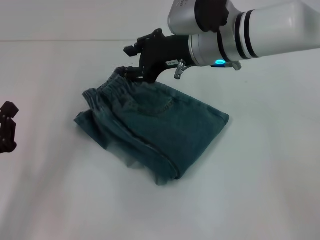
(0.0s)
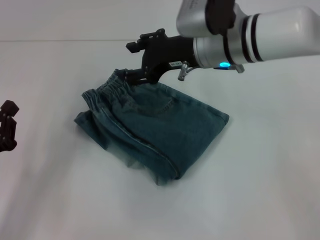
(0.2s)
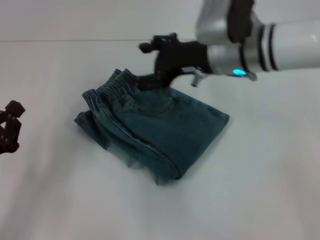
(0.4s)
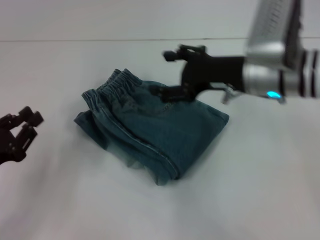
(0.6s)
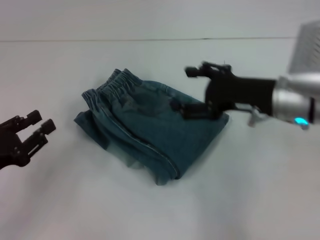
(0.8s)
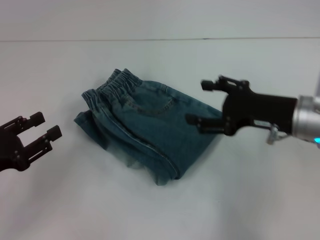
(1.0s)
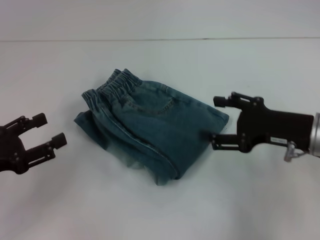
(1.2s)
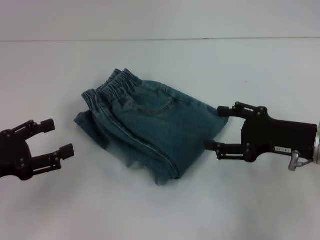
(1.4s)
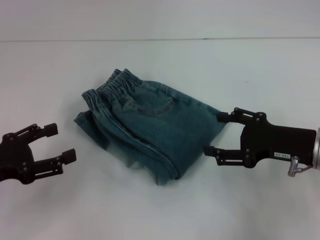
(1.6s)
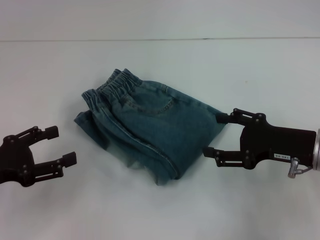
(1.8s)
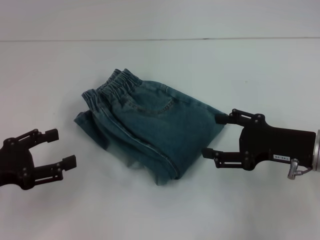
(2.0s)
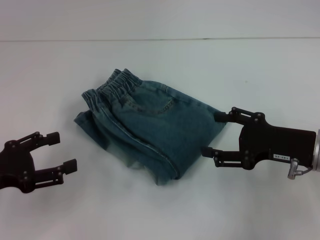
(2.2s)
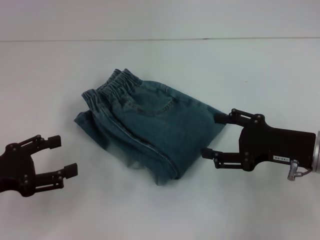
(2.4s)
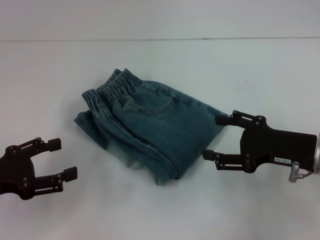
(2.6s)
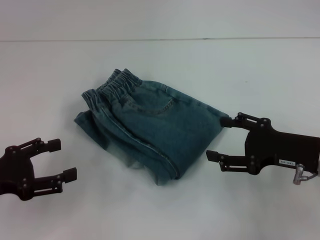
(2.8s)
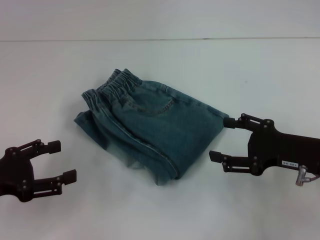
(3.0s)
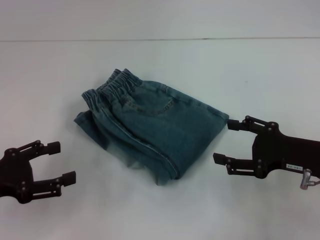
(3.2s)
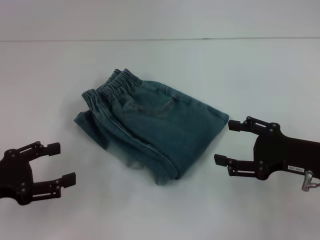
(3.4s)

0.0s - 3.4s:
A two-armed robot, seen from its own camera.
0.0s - 1.6s: The right gripper travels to the right, backward and downward by some 20 cm, and opens; the left gripper goes roughly 5 cm upward, and opens its fingers.
1.6s - 3.4s: The grippers move only a little.

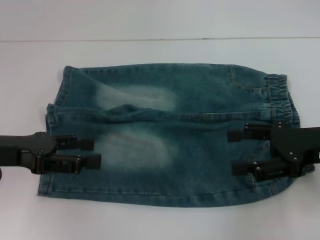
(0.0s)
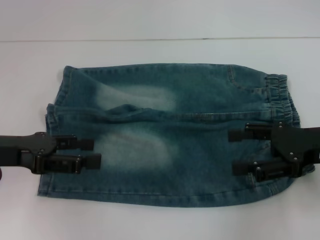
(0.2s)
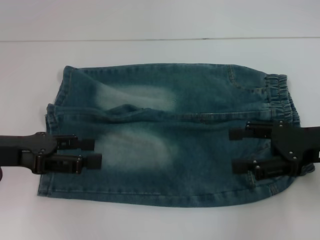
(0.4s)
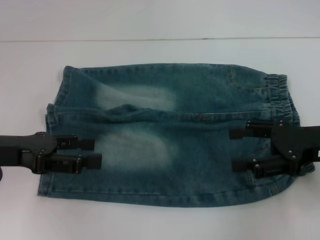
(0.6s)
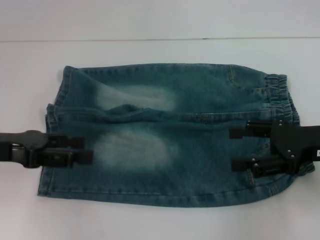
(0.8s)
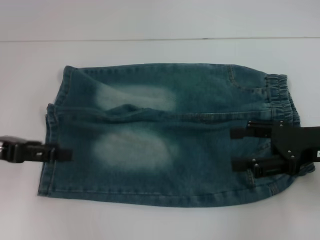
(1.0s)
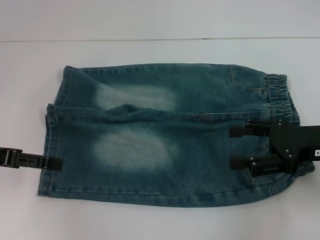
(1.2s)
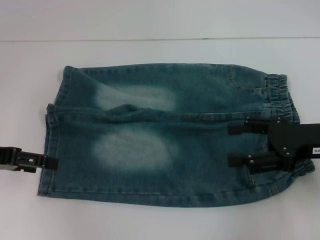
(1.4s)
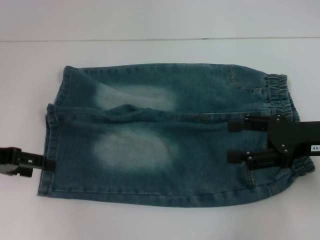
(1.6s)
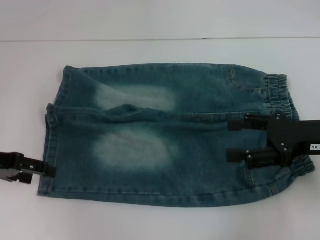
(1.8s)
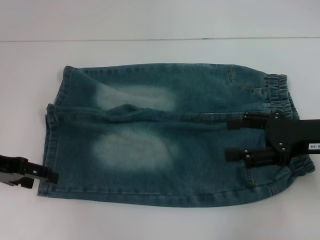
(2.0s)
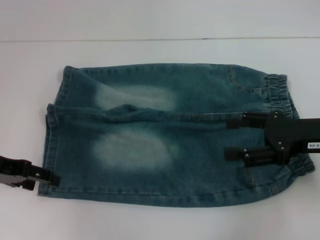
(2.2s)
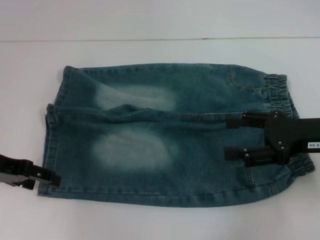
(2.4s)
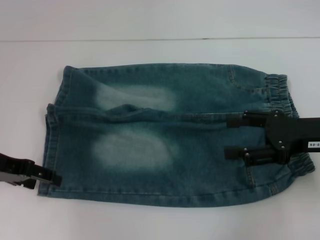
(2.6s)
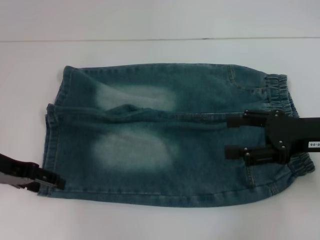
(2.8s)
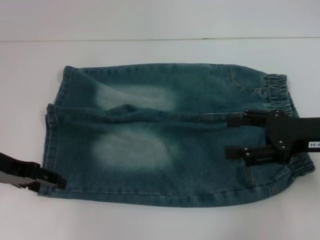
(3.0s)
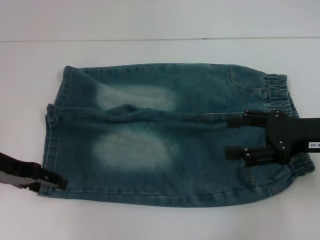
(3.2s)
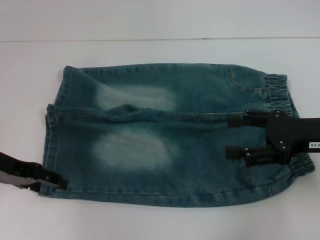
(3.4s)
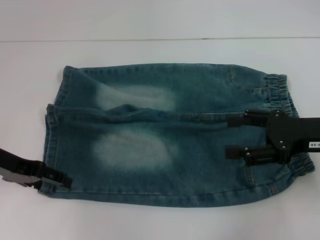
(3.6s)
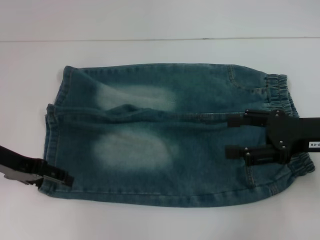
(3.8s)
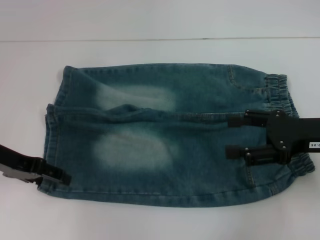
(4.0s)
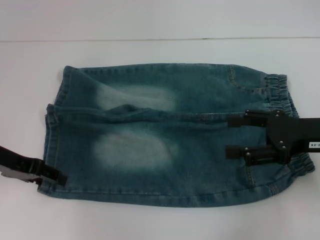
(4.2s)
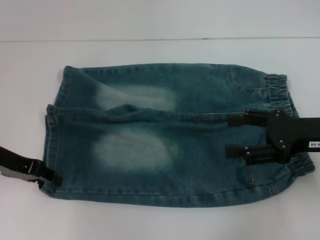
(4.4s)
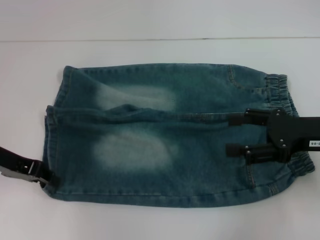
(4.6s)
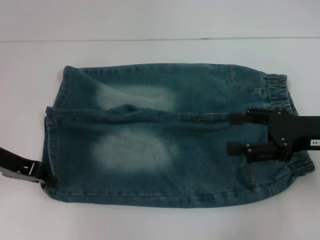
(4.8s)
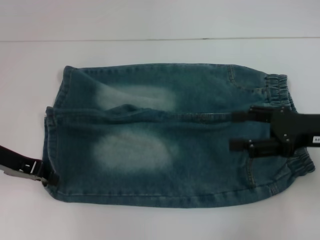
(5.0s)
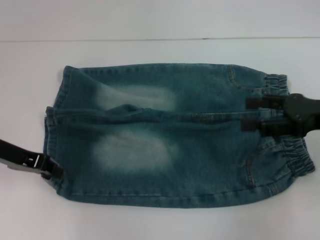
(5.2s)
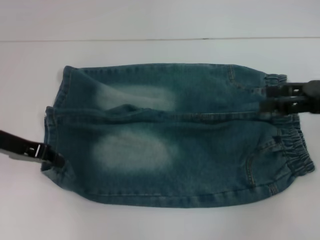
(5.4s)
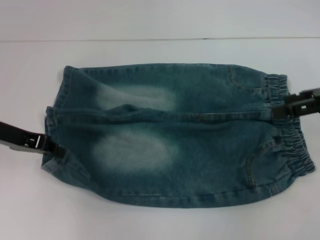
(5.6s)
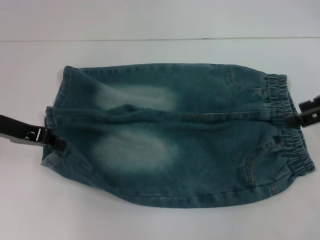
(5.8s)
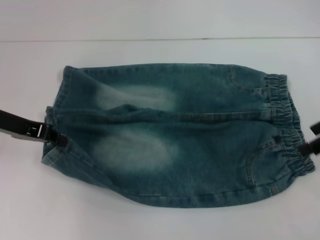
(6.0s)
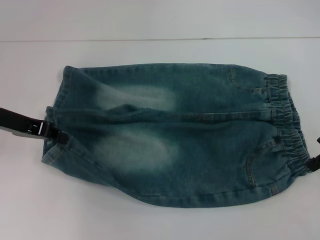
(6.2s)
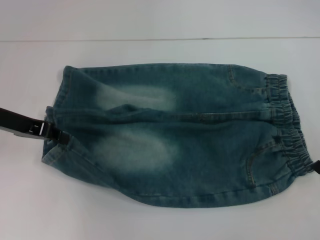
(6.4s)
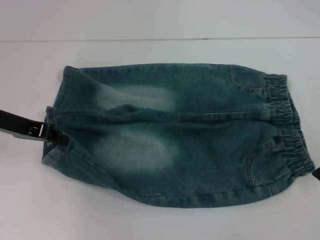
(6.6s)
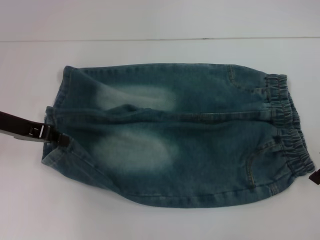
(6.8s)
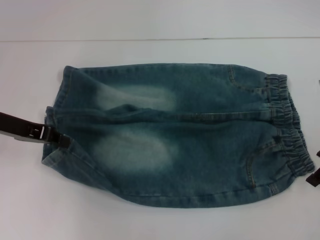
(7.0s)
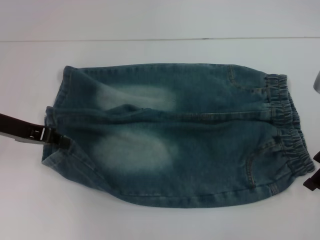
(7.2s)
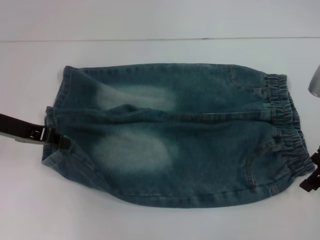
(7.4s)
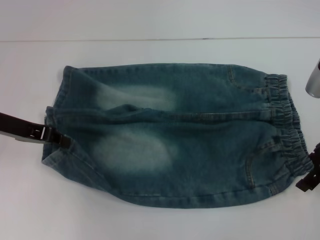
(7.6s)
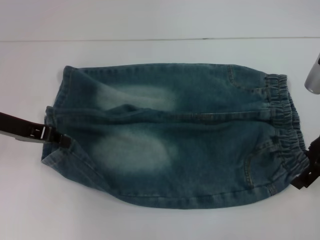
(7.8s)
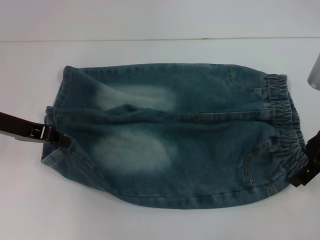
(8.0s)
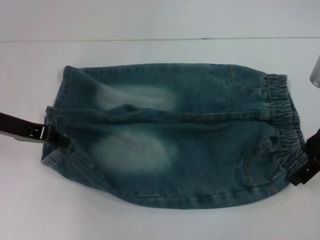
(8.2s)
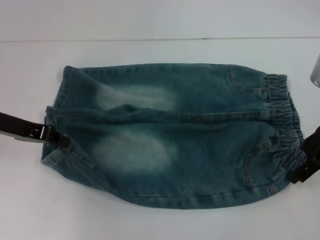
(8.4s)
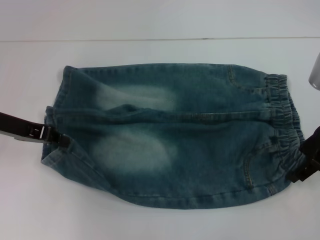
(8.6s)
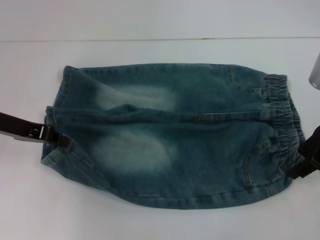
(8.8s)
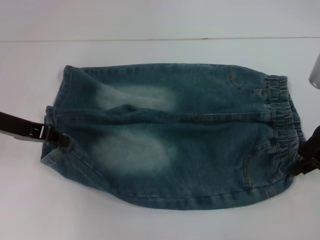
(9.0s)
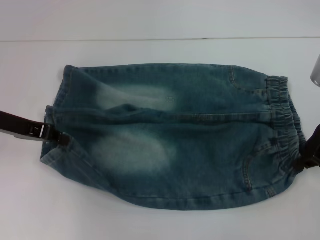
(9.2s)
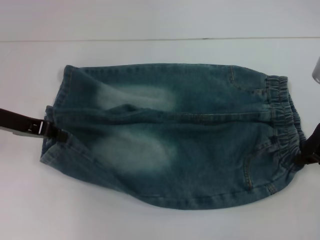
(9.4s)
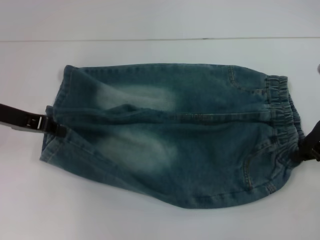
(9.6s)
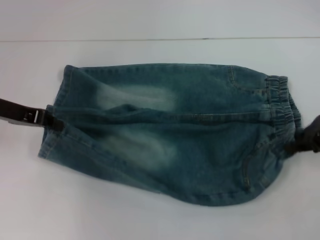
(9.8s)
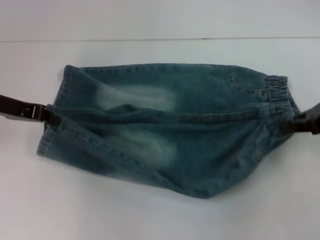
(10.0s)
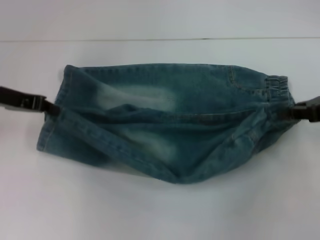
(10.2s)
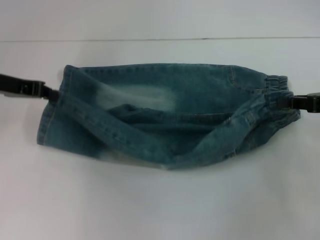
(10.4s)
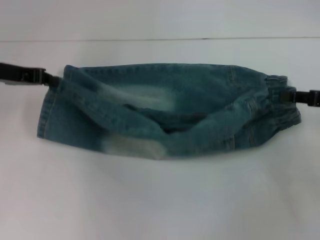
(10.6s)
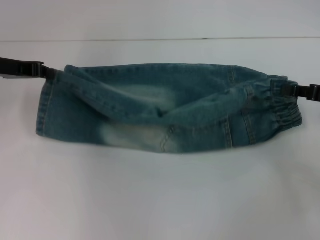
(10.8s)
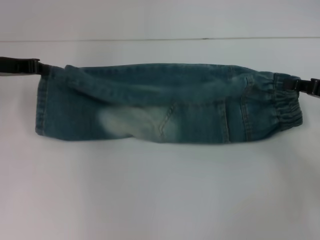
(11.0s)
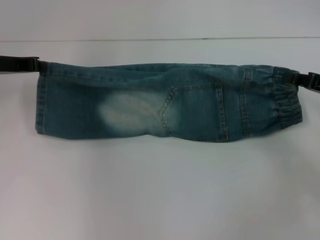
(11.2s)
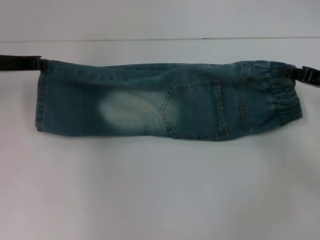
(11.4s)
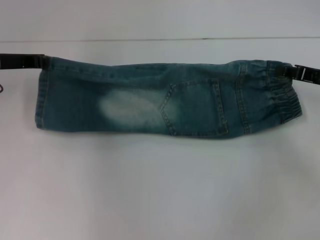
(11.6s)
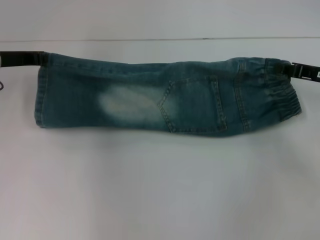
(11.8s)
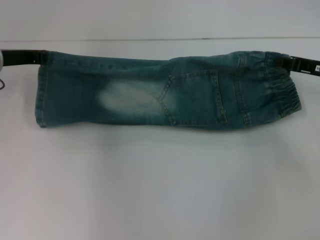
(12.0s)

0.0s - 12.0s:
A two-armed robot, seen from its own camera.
Step, 0.0s - 5.0s: Grab the lower left pant leg with your left hand.
Step, 5.2s - 9.4s: Hold the lower right waistband with your right hand.
1.6s - 3.0s: The grippers stay close to where they were, moving slightly.
3.0s - 4.4s: Both grippers stay about where they are.
4.4s - 6.0s: The left gripper closes its fingers; the right gripper shifts about 10 cm upward and forward.
6.0s - 7.6s: The right gripper ends up about 5 cm from where it was.
7.6s - 9.0s: The right gripper closes its fingers.
9.0s - 10.4s: The right gripper travels to the right by roughly 5 cm, and closes its fingers.
10.4s - 12.0s: The right gripper is displaced forward by some 5 cm.

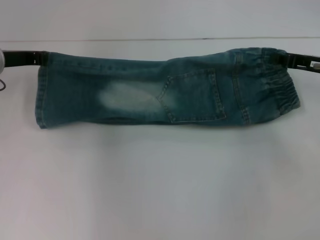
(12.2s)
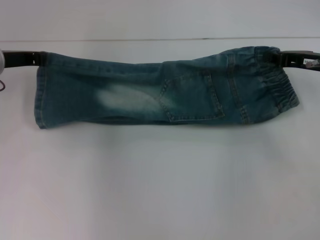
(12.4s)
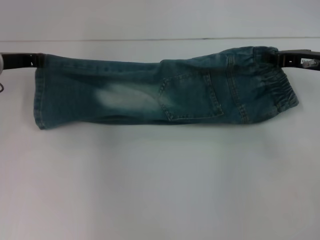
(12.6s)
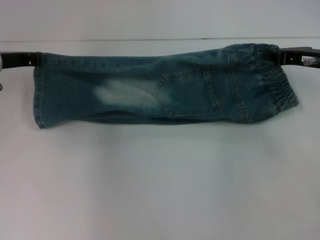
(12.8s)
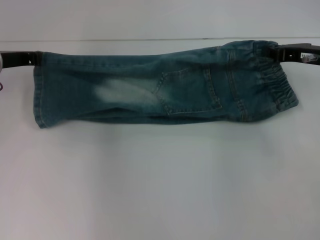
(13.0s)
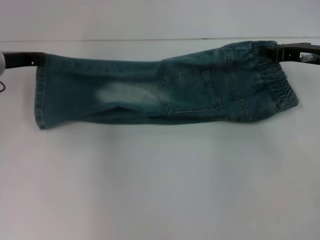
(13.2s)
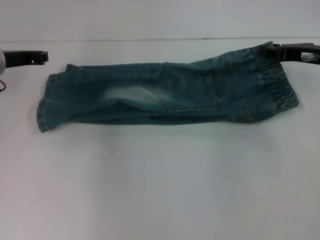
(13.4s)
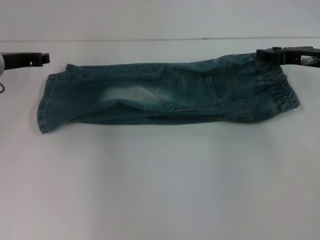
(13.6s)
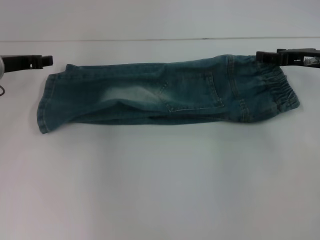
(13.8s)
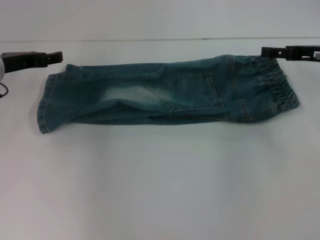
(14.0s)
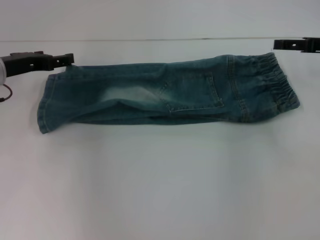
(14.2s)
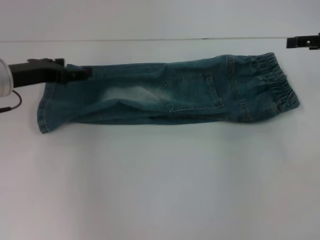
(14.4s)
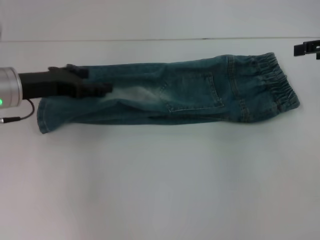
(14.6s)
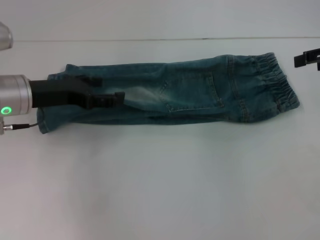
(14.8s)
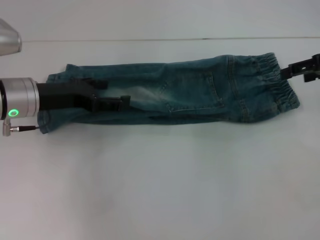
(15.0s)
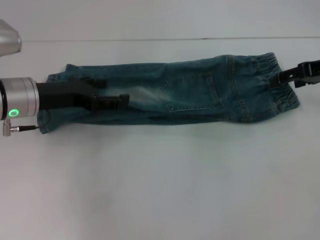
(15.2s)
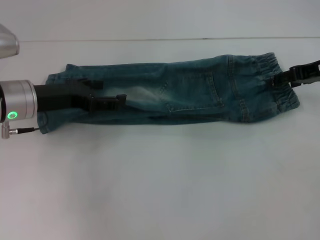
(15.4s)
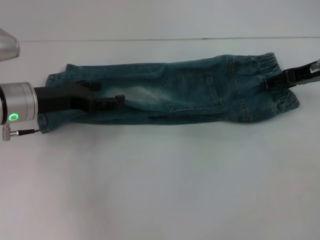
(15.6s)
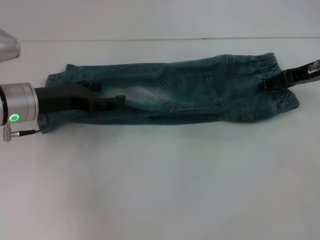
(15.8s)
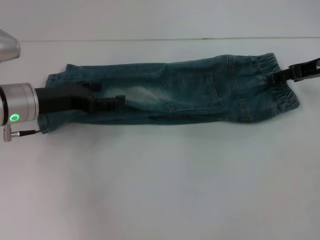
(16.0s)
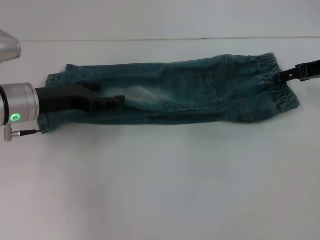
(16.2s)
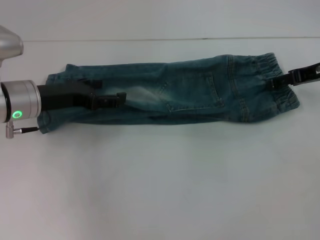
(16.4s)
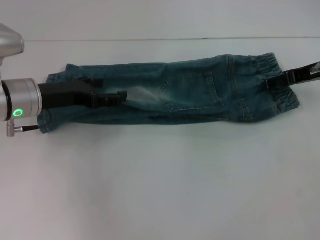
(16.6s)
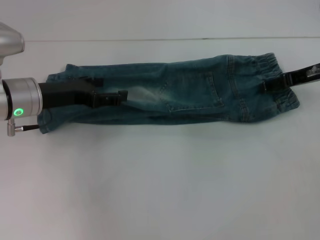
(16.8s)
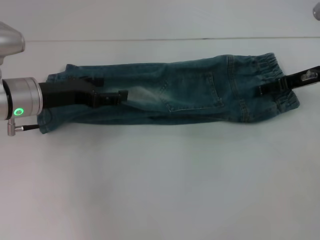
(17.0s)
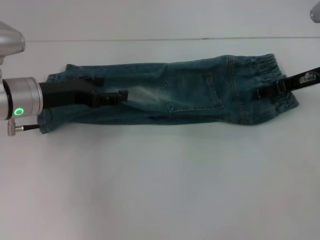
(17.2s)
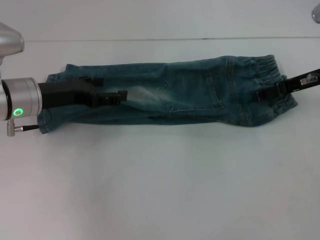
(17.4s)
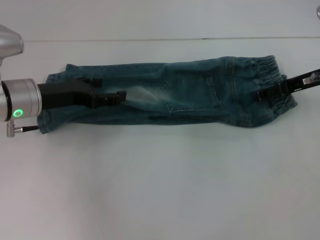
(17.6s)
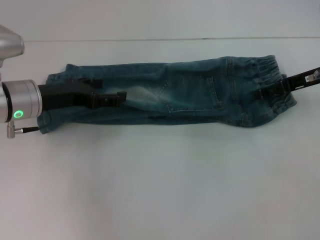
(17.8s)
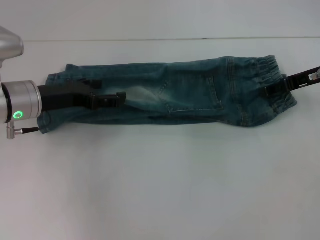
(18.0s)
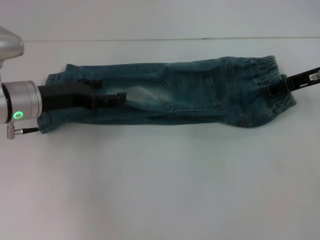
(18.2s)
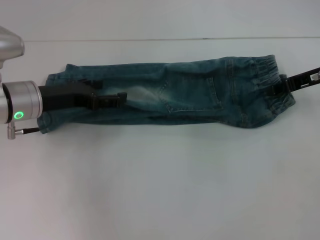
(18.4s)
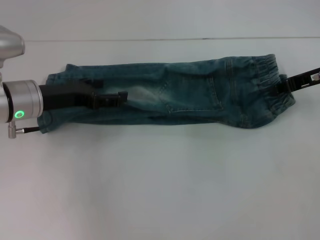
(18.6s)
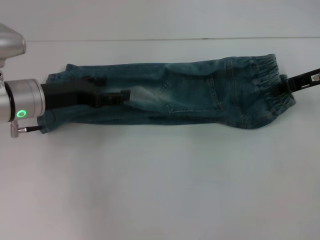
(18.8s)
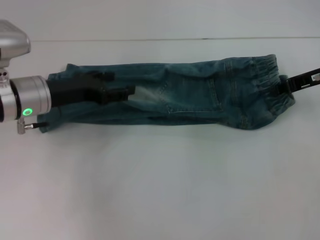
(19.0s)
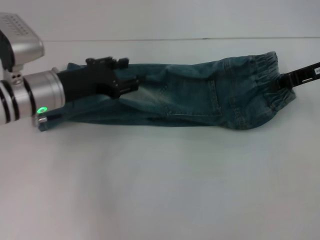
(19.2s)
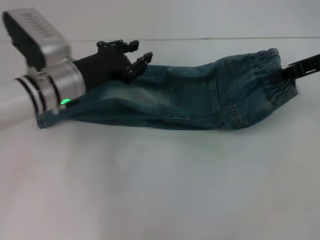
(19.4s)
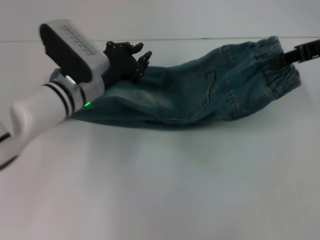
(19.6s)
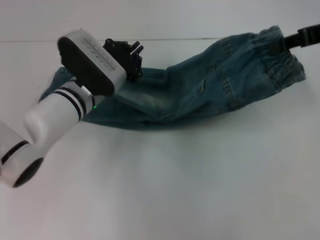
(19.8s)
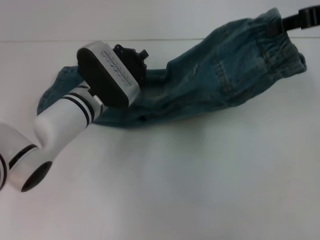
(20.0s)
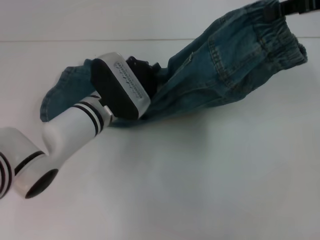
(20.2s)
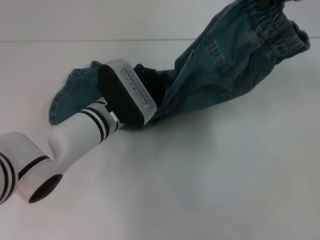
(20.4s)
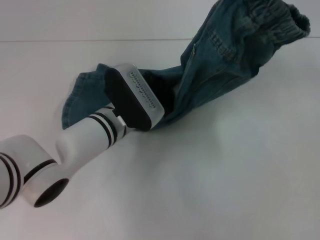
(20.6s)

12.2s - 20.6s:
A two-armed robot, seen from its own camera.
Step, 14.0s - 18.8s: Grab the waistband with your right hand.
12.2s - 13.6s: The grippers make only small movements.
13.6s - 15.0s: The left gripper shifts about 5 cm backward, and opens, while the right gripper goes some 10 cm upward, and opens its fingers.
15.0s - 16.4s: The right gripper moves roughly 5 cm.
16.4s - 17.8s: The grippers make only small movements.
17.8s - 19.2s: The right gripper closes.
19.2s - 20.6s: The right gripper shifts about 15 cm upward. Meanwhile the left gripper shifts approximately 15 cm to the right and downward, and closes.
